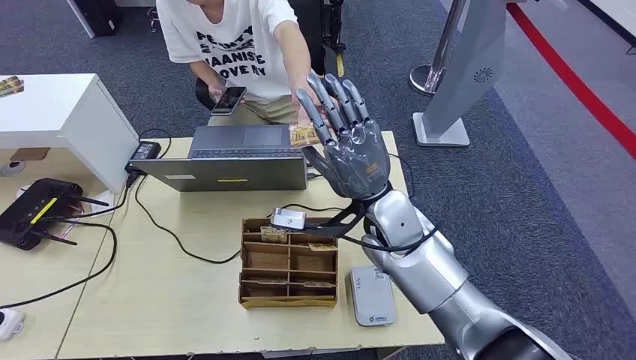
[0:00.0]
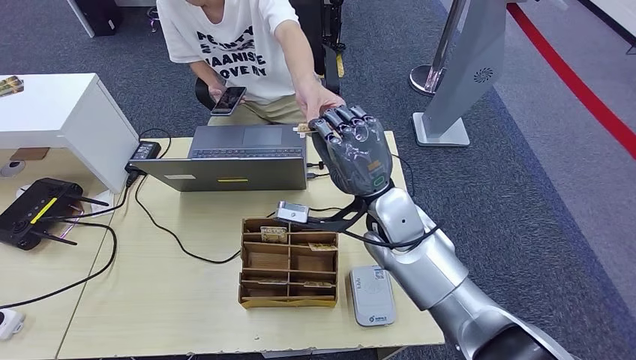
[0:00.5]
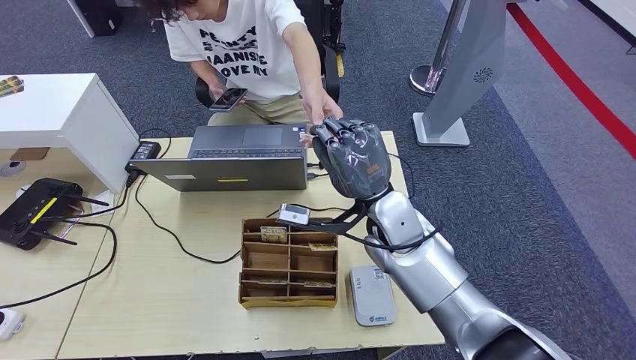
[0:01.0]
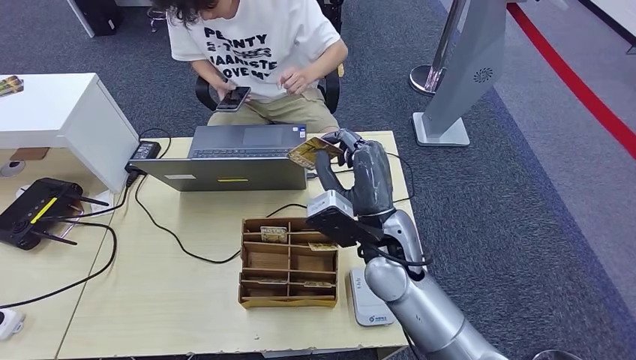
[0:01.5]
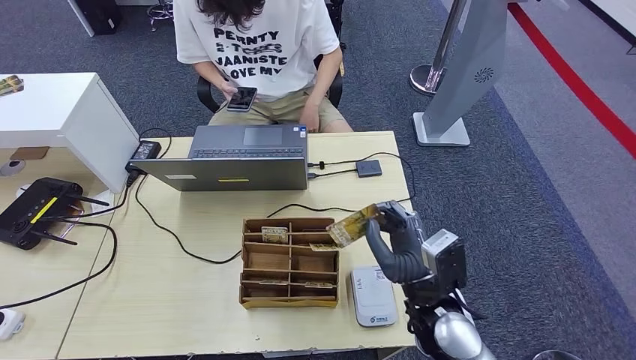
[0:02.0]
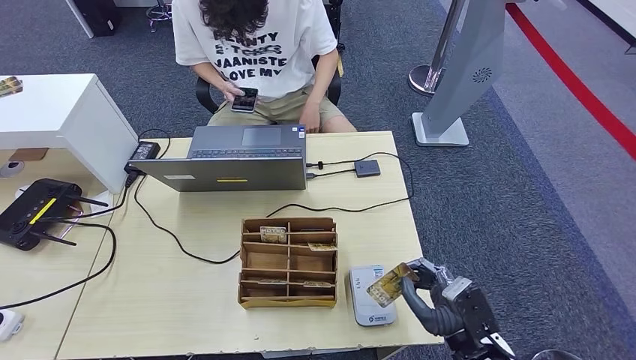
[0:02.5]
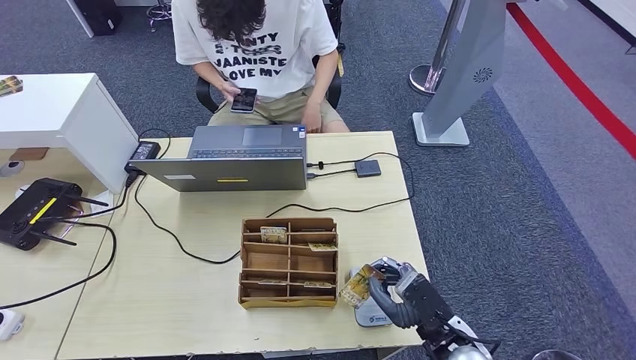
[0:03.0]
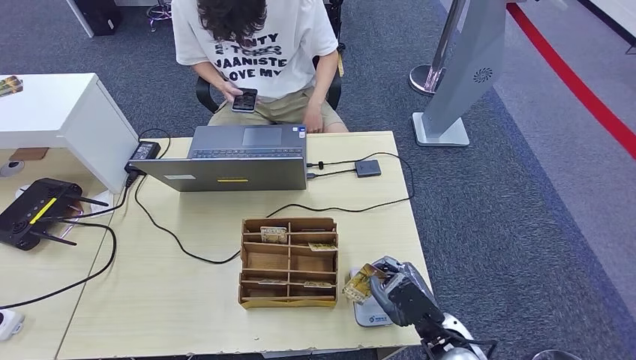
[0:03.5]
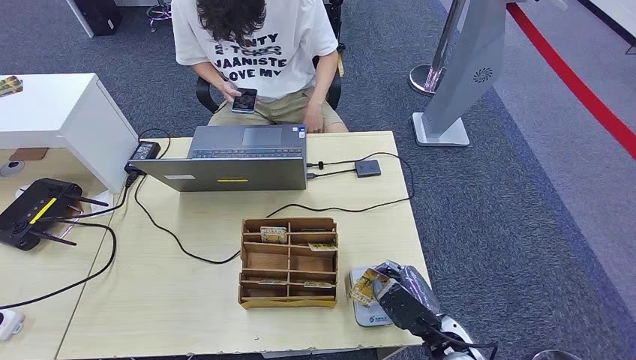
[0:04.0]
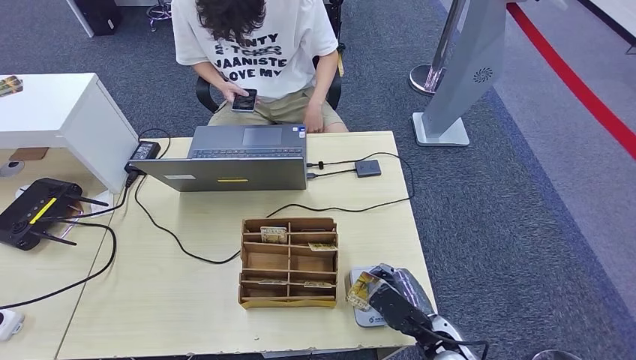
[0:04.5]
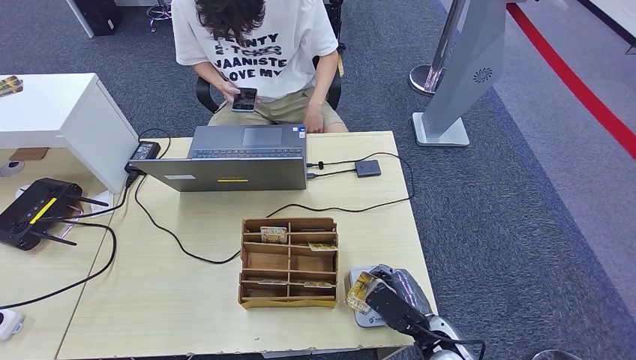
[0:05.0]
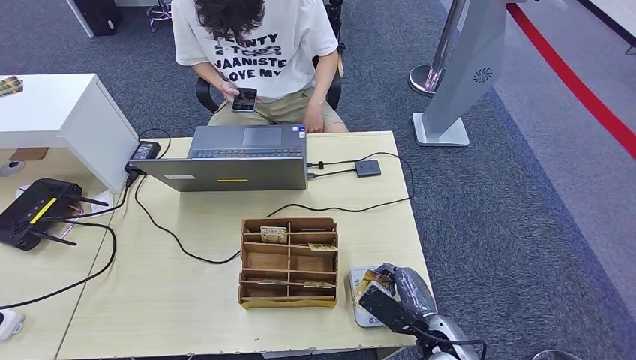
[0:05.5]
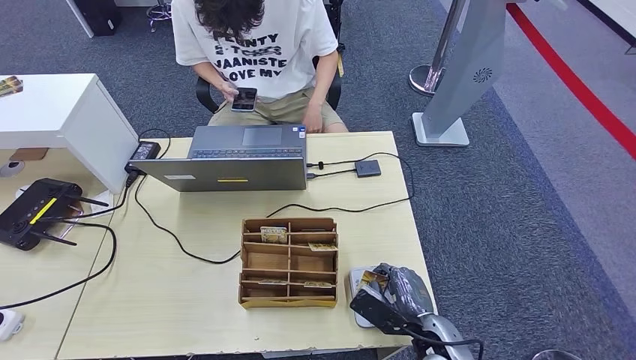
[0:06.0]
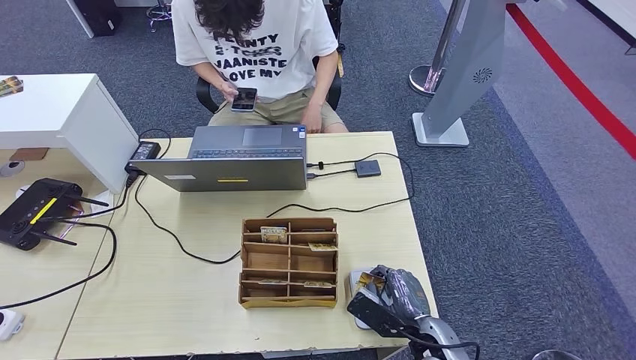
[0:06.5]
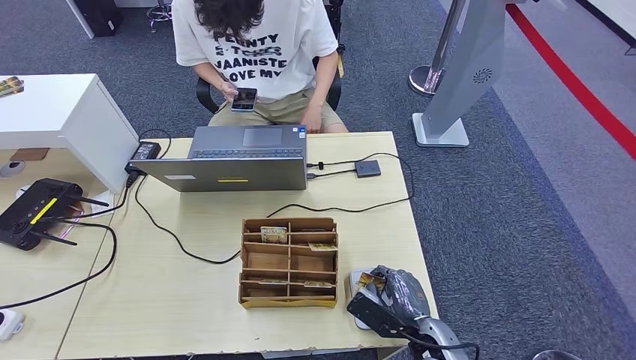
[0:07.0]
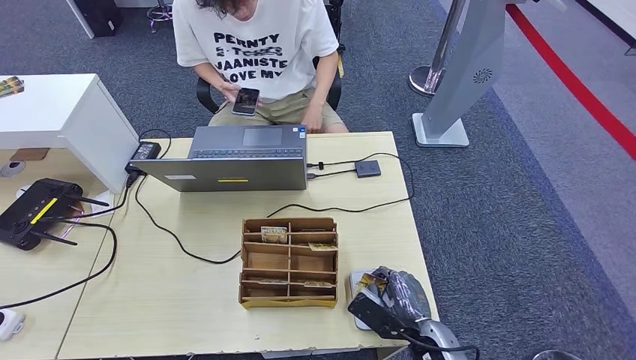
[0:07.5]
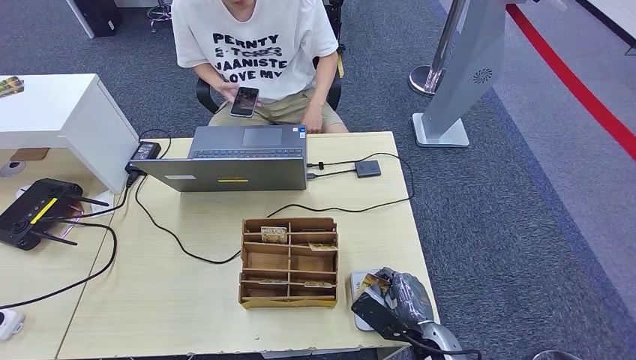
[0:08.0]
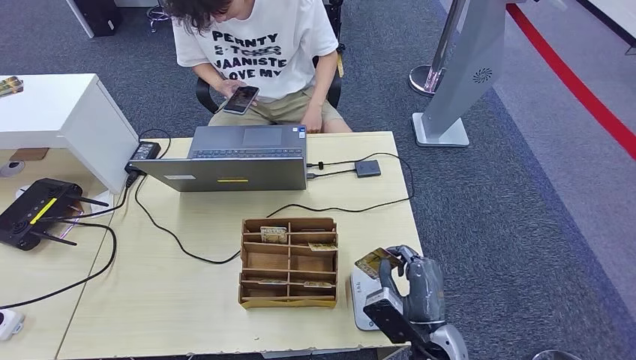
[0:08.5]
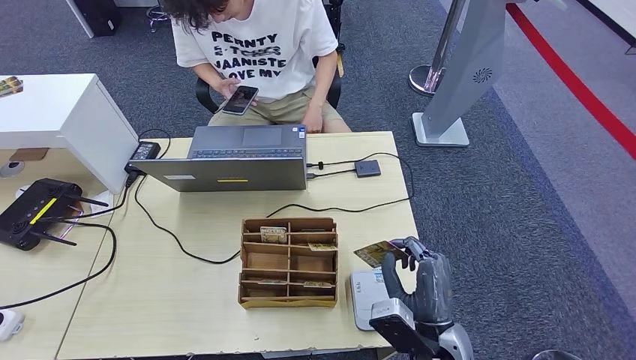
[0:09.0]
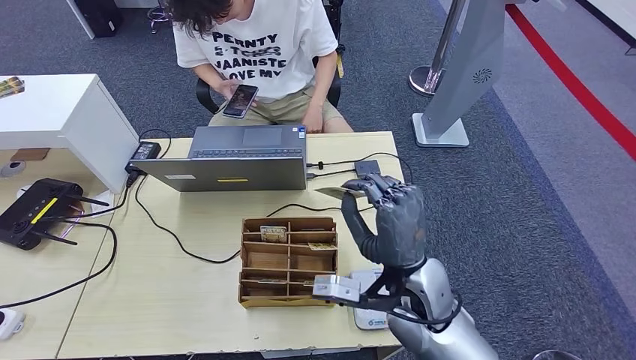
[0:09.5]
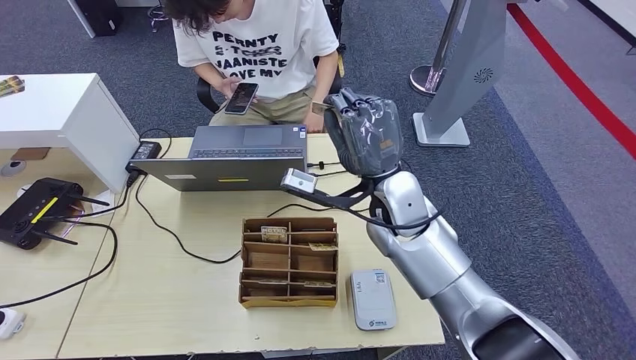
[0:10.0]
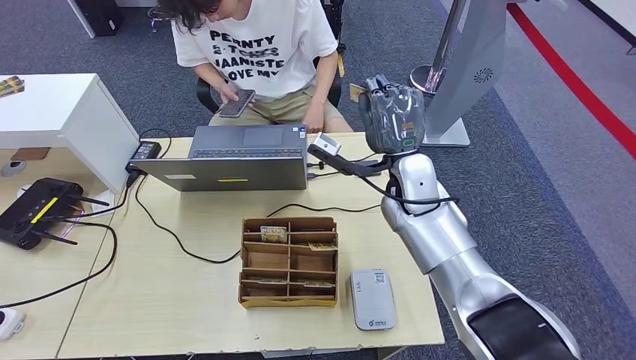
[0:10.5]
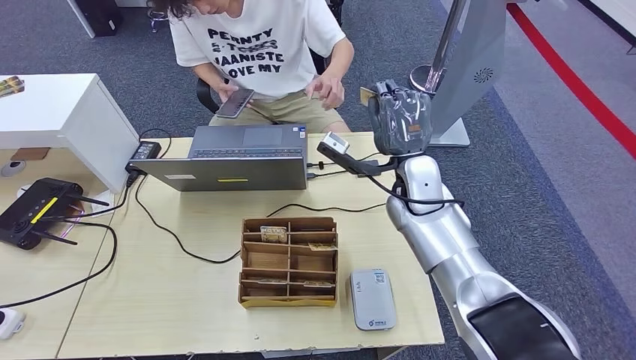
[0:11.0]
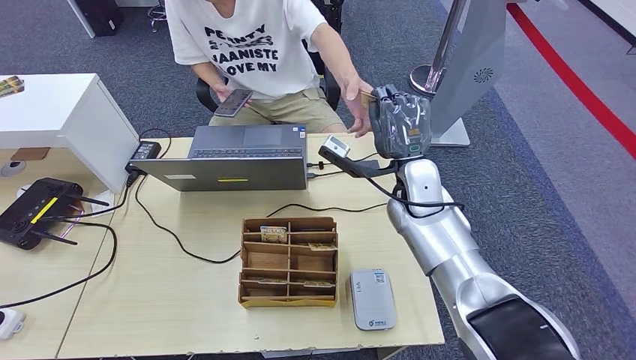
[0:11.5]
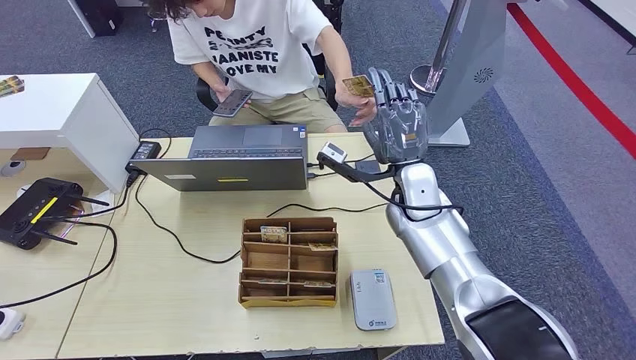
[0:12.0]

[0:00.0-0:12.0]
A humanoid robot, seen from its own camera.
Step, 0:00.0 to 0:01.5: Take the ID card from the person's hand.
Step, 0:02.0 to 0:06.0: Place the ID card on the card reader.
0:02.0 to 0:04.0: The right hand moves downward, approximately 10 cm.
0:06.0 to 0:08.0: The hands move only a little.
0:08.0 to 0:10.0: The right hand is displaced upward and forward by approximately 30 cm.
0:10.0 to 0:12.0: The right hand is displaced forward by approximately 5 cm.

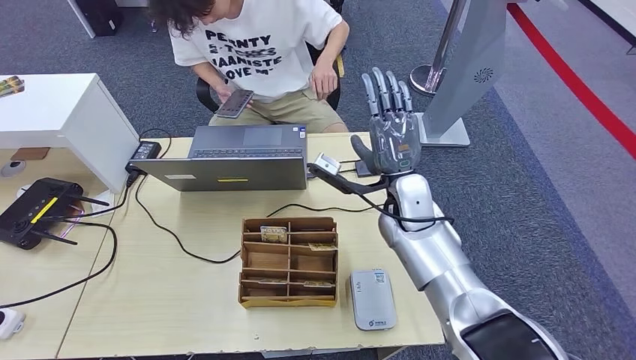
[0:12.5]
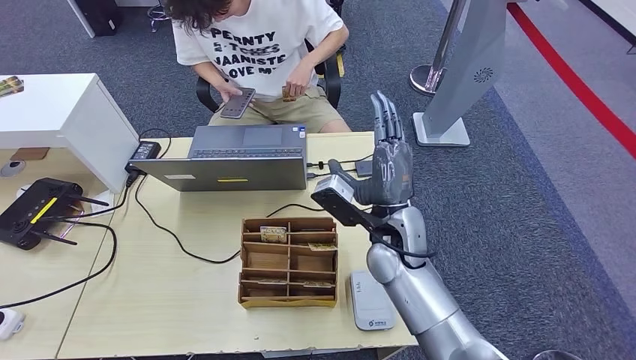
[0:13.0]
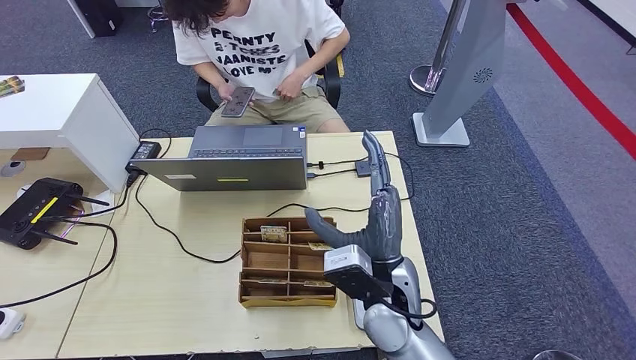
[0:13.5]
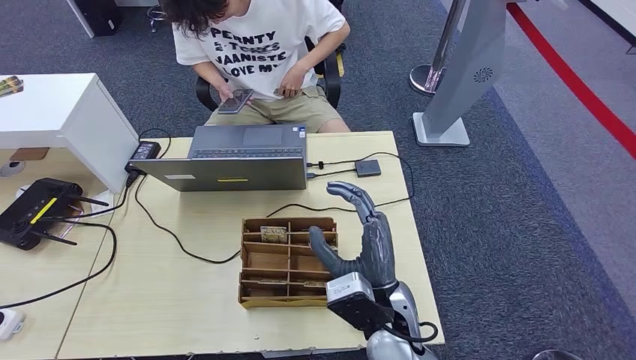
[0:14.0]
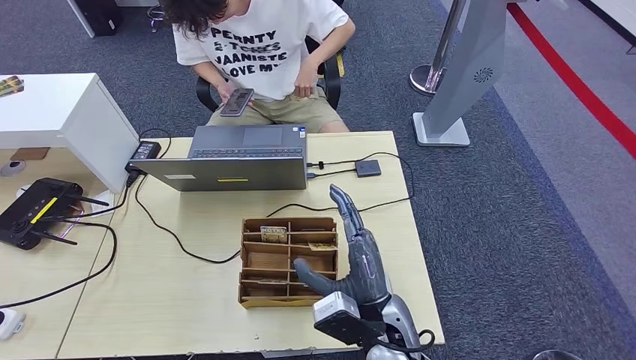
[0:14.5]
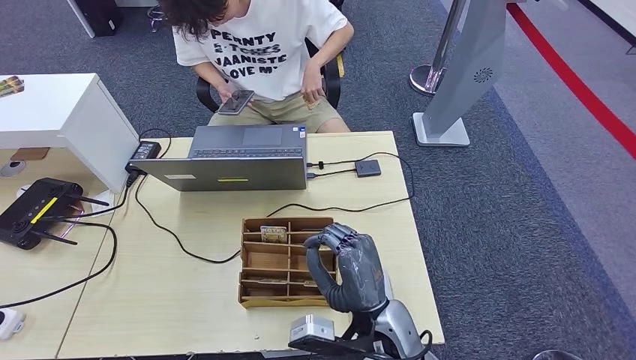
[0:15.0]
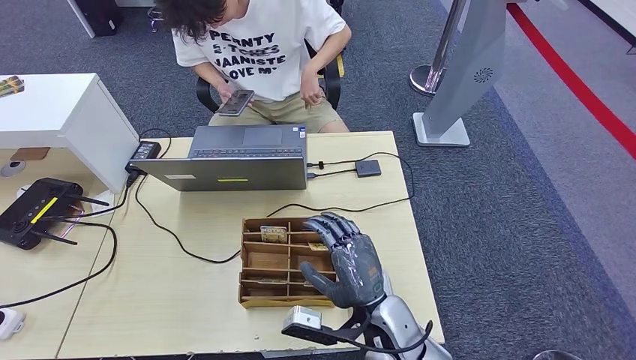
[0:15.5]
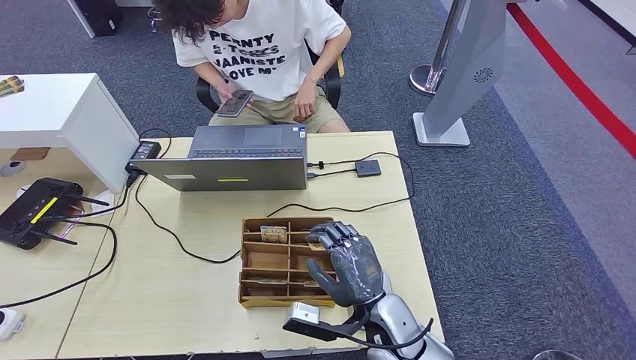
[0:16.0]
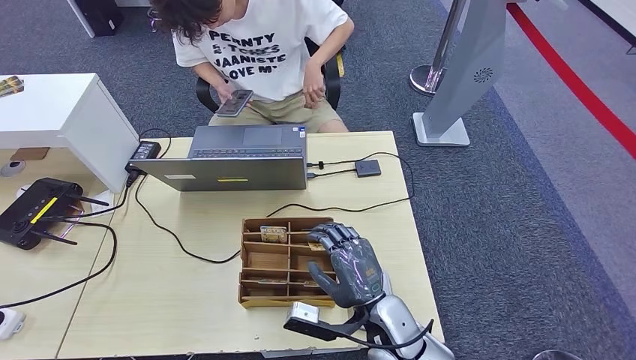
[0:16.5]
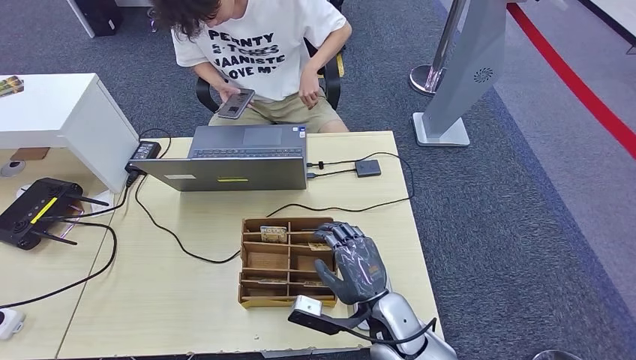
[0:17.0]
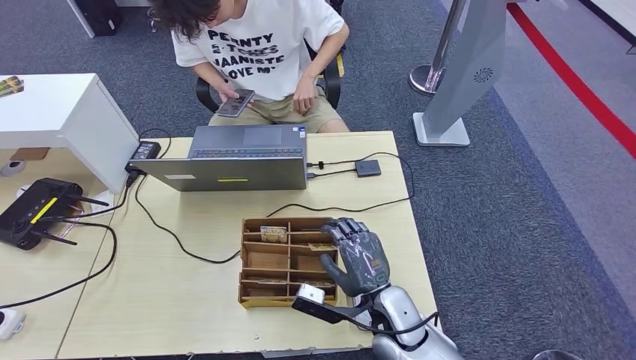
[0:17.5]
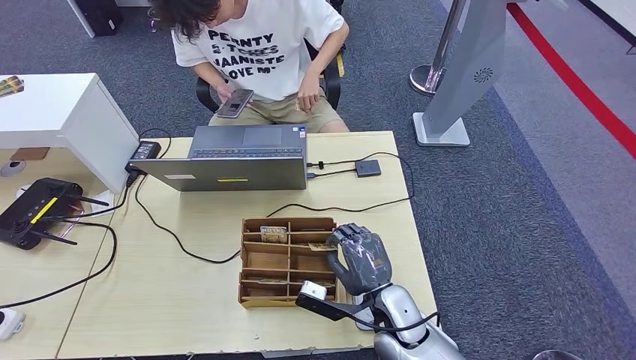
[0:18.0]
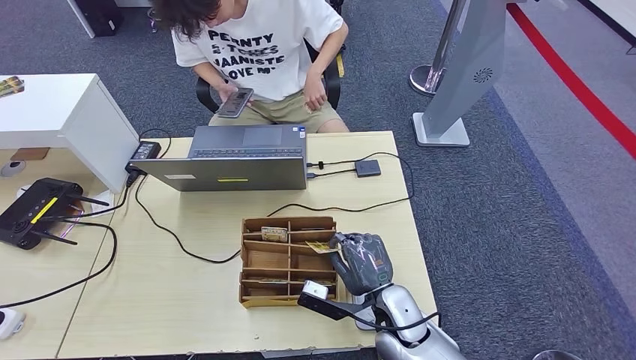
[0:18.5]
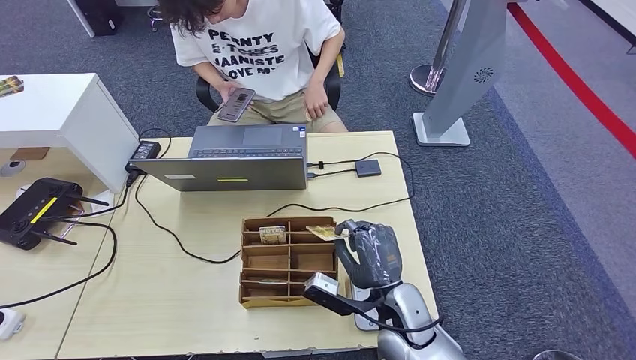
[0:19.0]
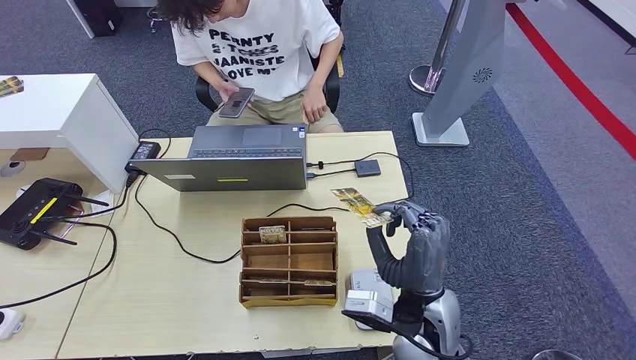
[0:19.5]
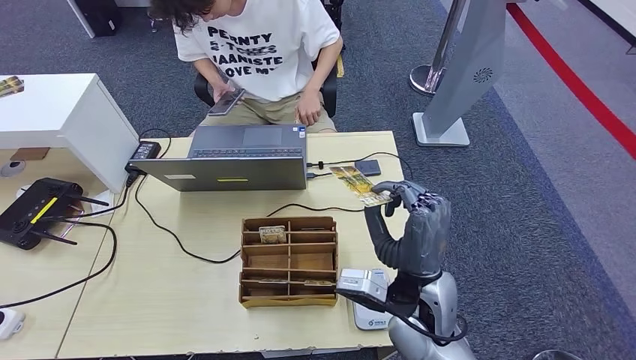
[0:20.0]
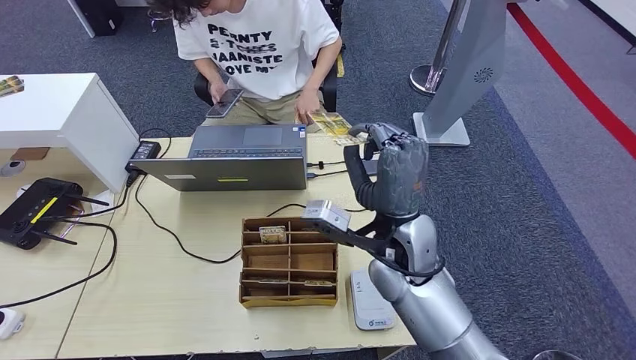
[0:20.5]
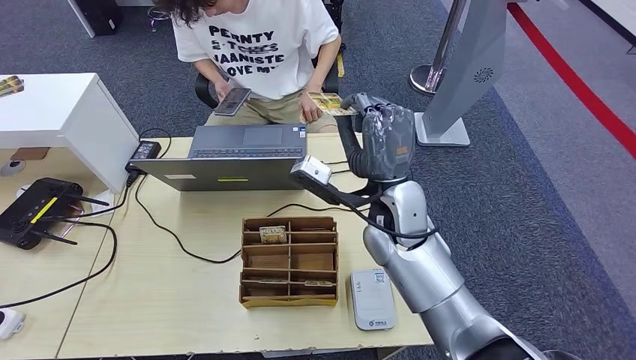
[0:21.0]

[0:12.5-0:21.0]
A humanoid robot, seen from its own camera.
Step, 0:12.5 to 0:19.0: Pick up the room key from the key card box.
0:12.5 to 0:14.5: The right hand heads backward, covering roughly 20 cm.
0:14.5 to 0:16.5: The right hand moves roughly 5 cm.
0:16.5 to 0:19.0: The hands make only small movements.
0:19.0 to 0:21.0: The right hand is displaced upward and forward by some 20 cm.
